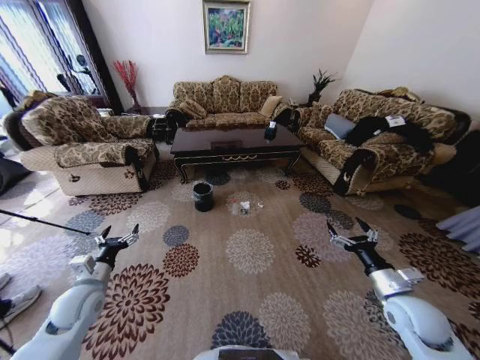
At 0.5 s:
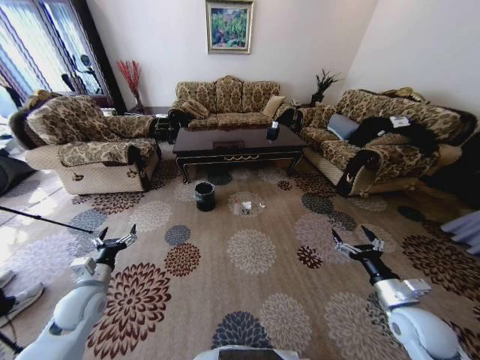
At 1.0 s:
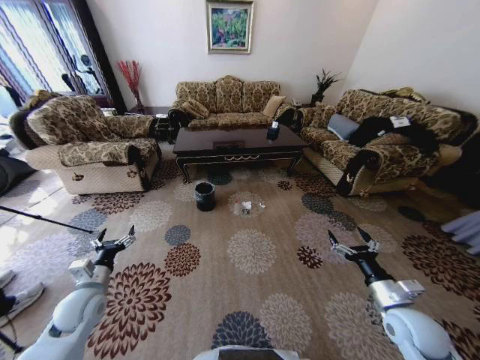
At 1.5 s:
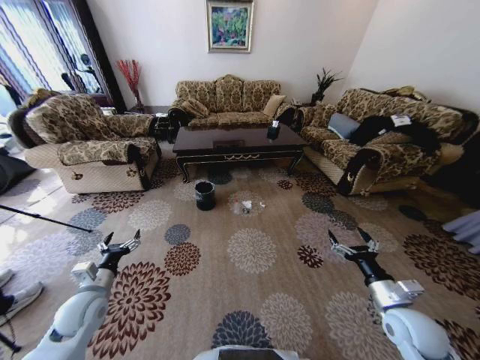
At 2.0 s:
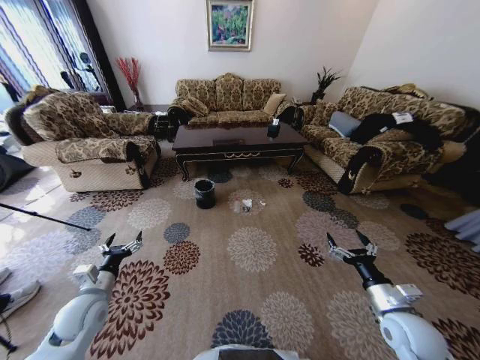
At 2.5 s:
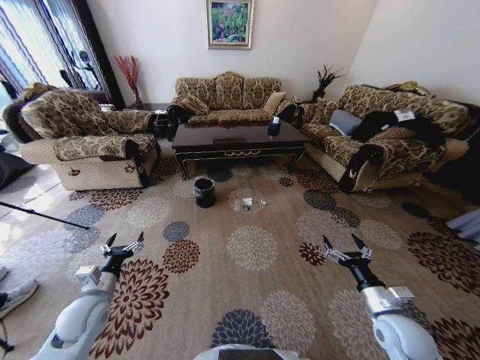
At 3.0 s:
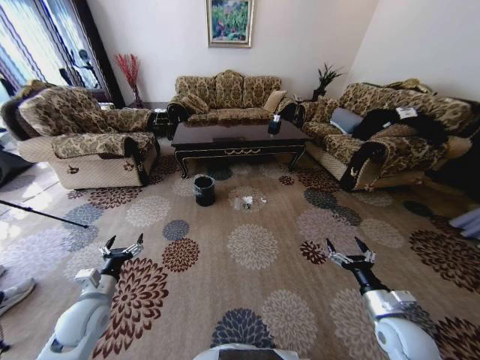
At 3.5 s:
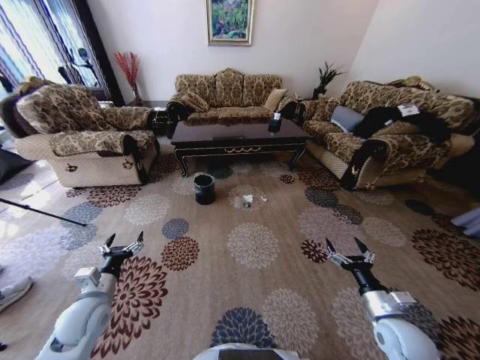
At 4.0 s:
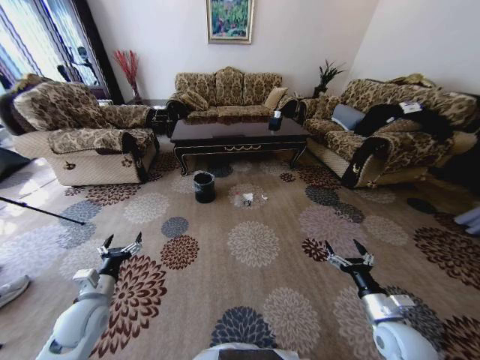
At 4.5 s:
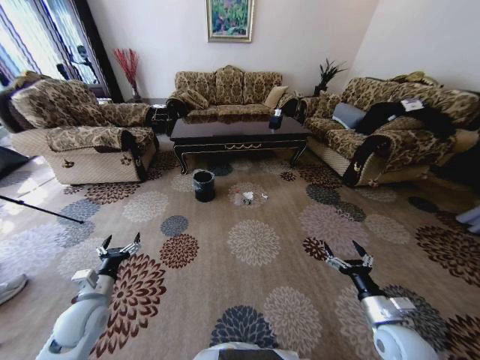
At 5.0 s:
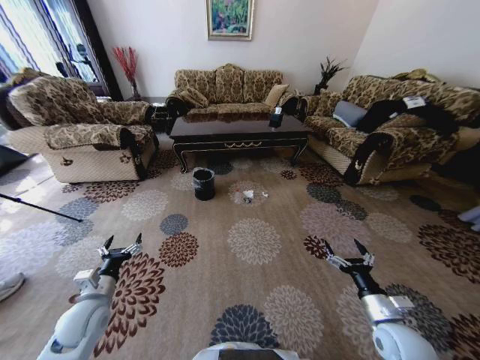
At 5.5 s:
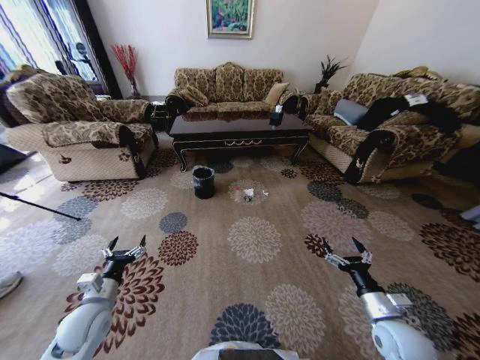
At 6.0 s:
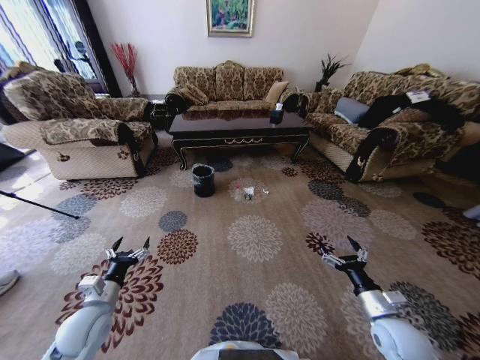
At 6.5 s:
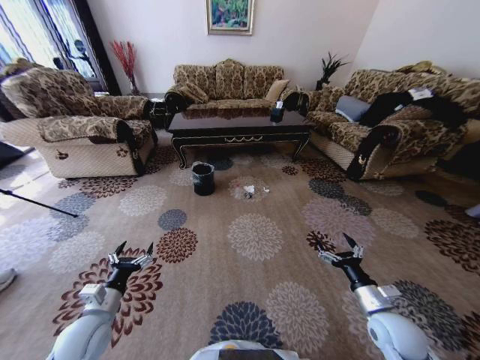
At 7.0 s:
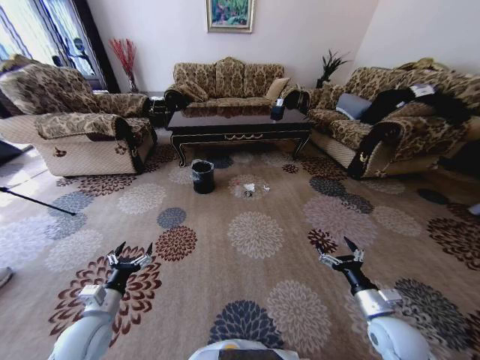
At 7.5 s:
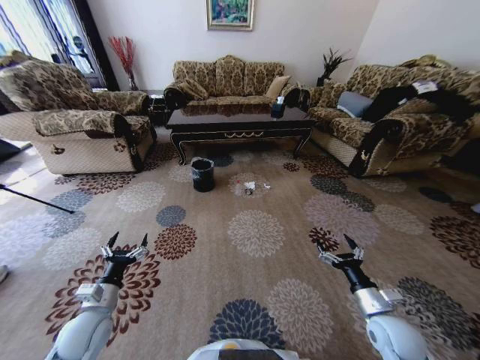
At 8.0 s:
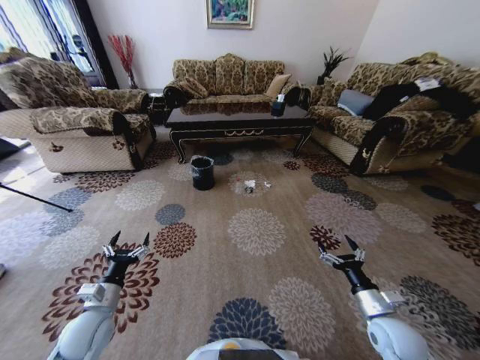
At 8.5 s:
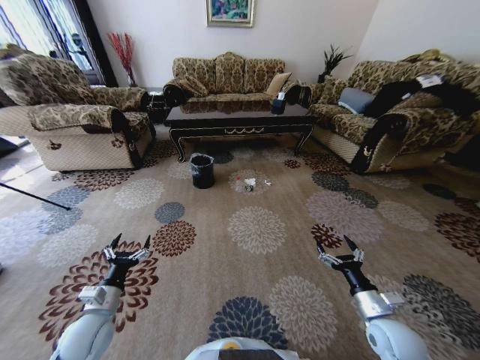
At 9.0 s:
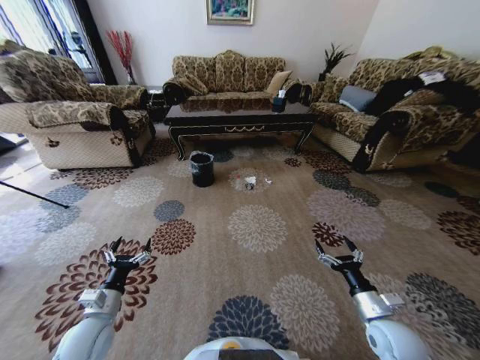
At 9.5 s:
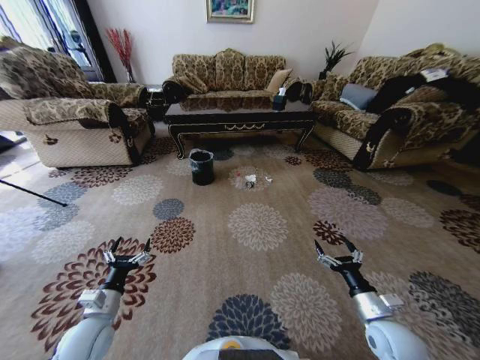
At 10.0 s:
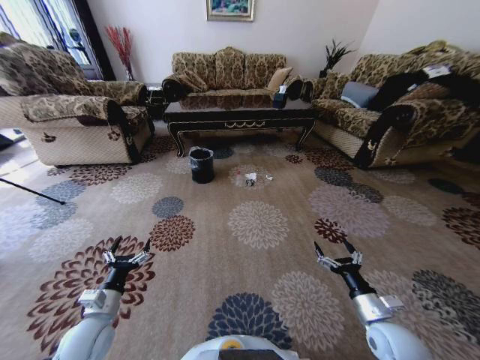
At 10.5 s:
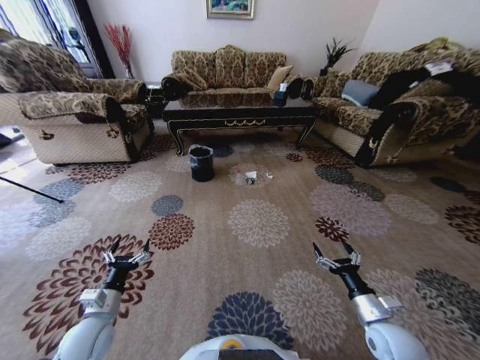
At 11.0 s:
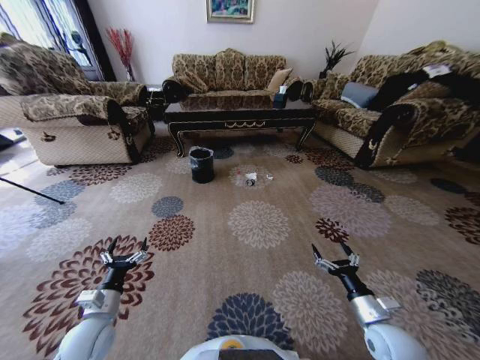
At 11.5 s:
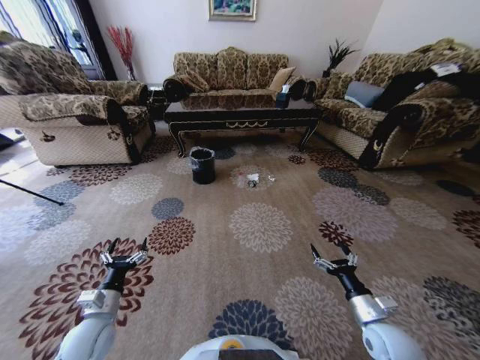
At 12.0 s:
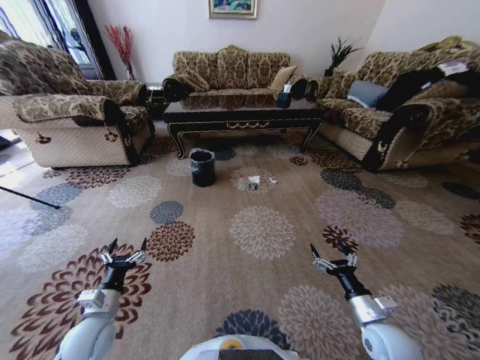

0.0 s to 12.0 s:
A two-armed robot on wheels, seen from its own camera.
Task of the whole recording: Move to the front of the table and pick up the trash from the floor, then place it into the trash bin.
10.0 to 12.0 s: Both grippers stay put.

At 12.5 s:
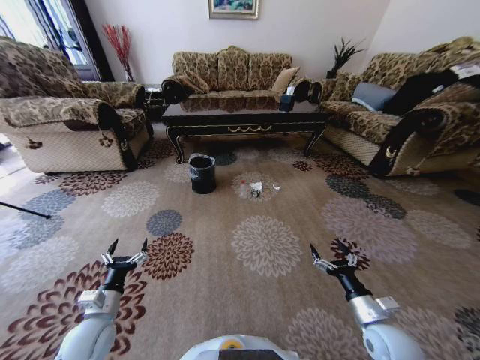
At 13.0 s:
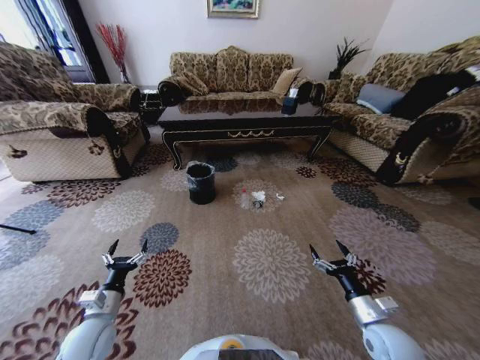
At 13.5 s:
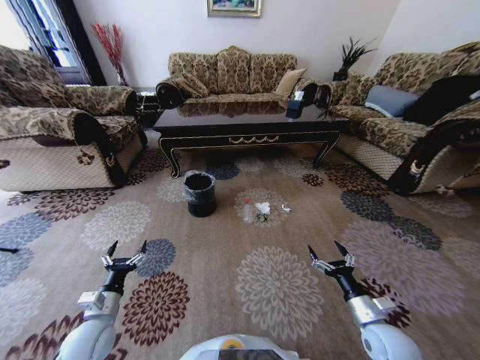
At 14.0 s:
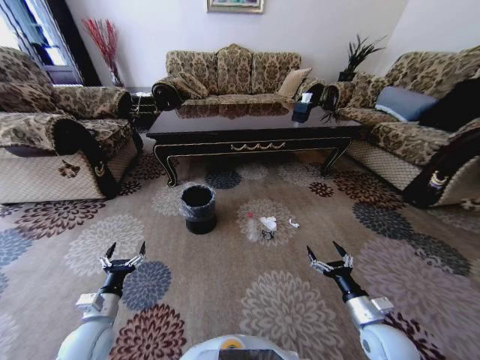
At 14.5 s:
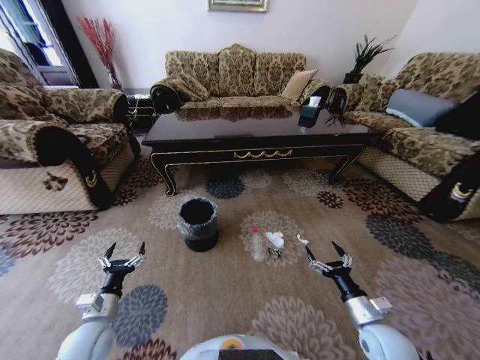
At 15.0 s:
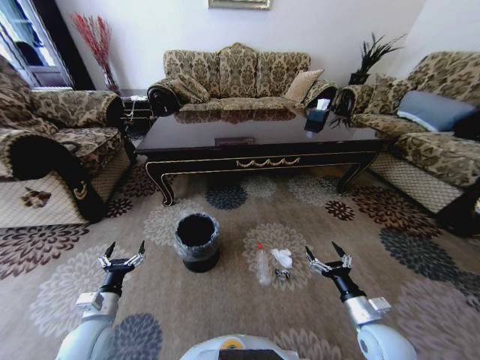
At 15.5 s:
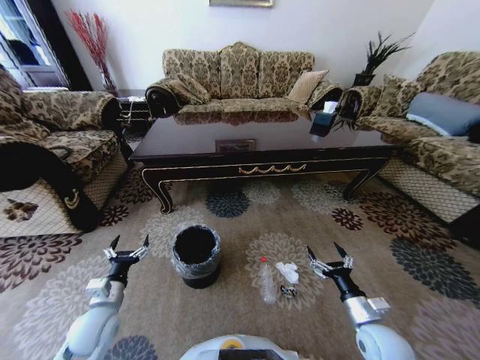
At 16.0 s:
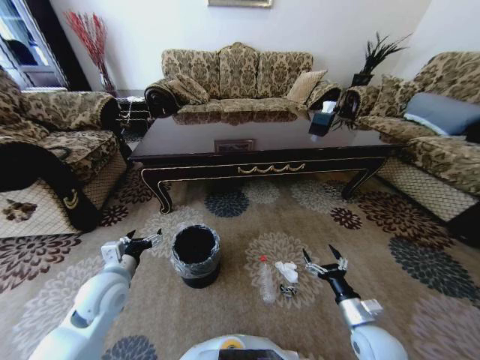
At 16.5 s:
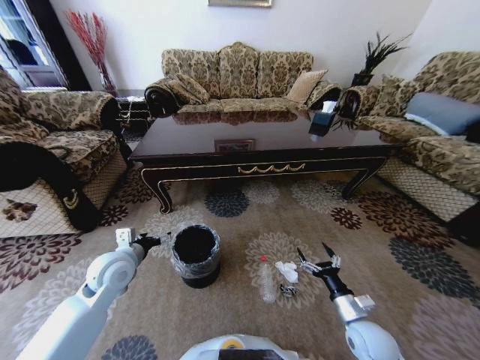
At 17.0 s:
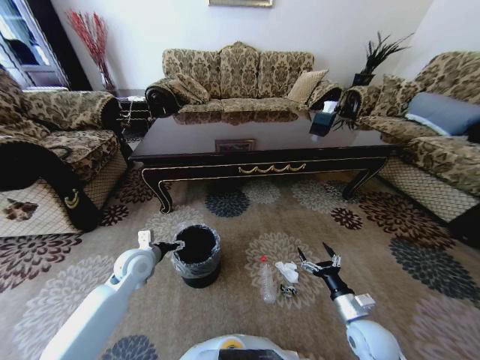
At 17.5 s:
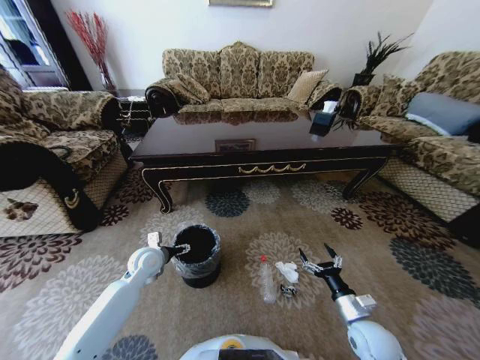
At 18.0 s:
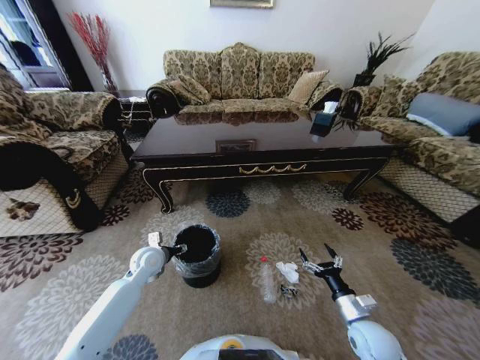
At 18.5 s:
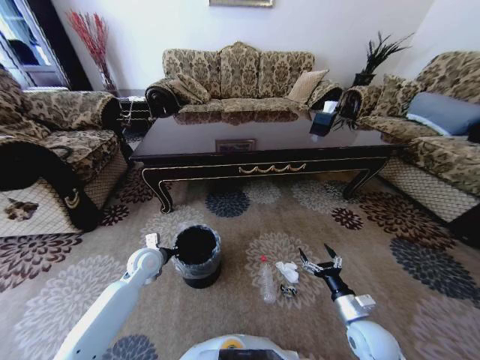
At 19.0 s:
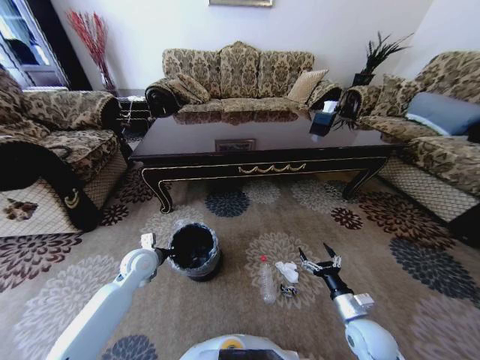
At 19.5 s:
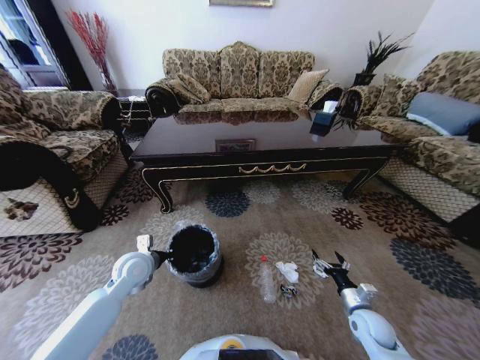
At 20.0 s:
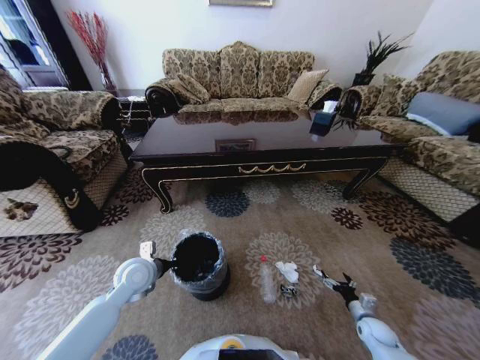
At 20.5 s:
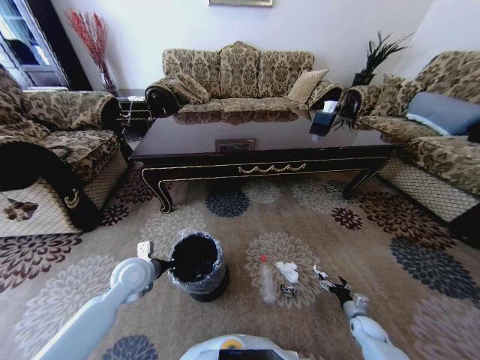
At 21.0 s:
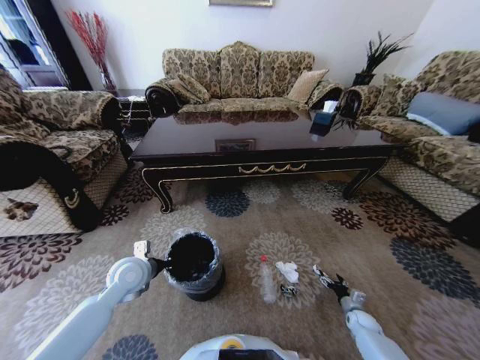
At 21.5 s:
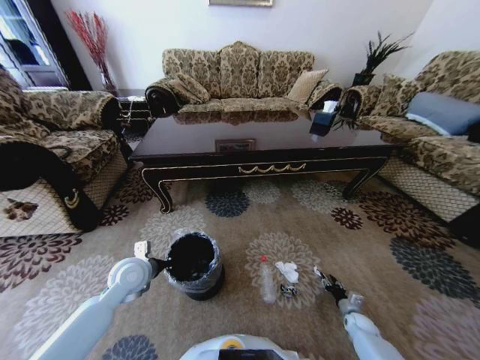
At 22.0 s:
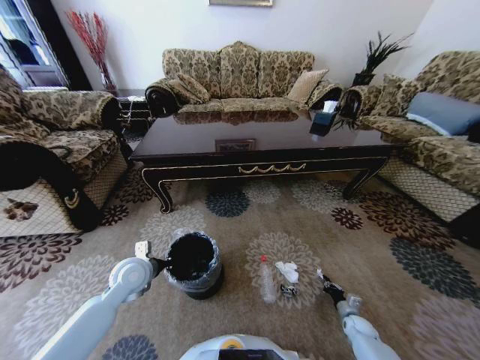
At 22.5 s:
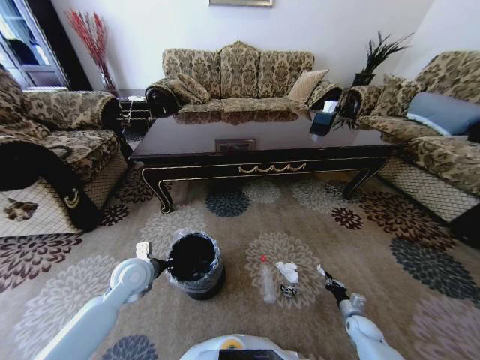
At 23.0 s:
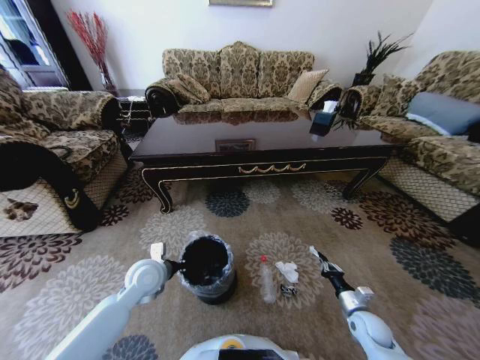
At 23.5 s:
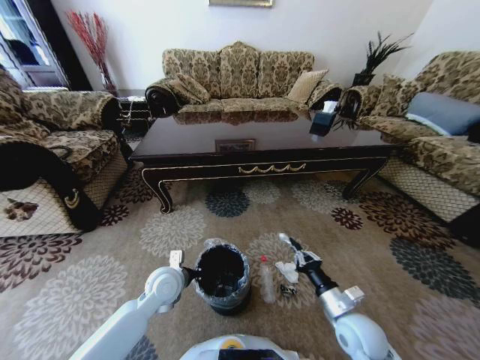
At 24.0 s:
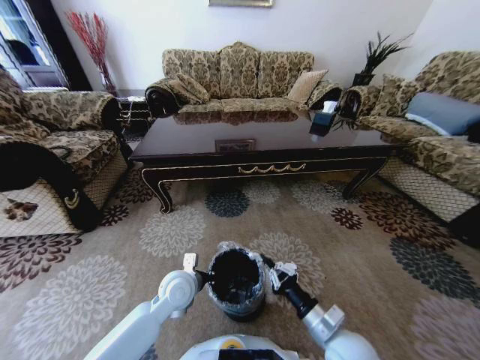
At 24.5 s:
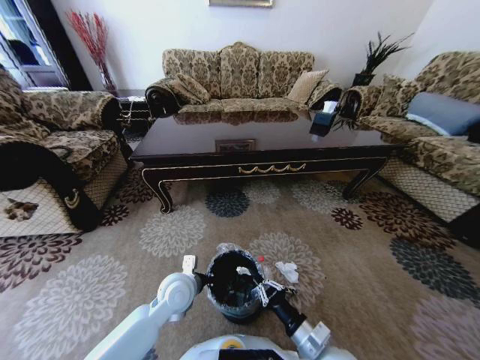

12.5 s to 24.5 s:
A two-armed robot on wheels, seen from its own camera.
Task of the whole recording: Move to the front of the table and pick up the trash from the floor, then place it into the trash bin.
14.5 to 16.5 s: The left gripper shifts roughly 20 cm upward, forward and to the right.
16.5 to 18.5 s: The left gripper moves downward and forward, approximately 10 cm, and closes.
18.5 to 20.5 s: The left gripper moves backward, some 5 cm; the right gripper is displaced downward and to the right by some 25 cm.
20.5 to 22.5 s: The right gripper closes.
22.5 to 24.5 s: The right gripper goes roughly 35 cm to the left, upward and backward, while the left gripper shifts approximately 10 cm to the right.

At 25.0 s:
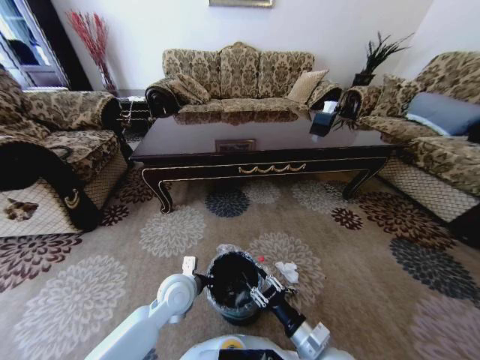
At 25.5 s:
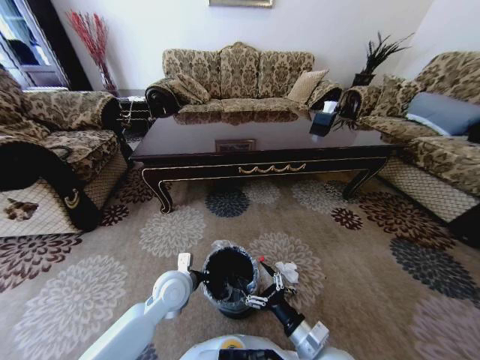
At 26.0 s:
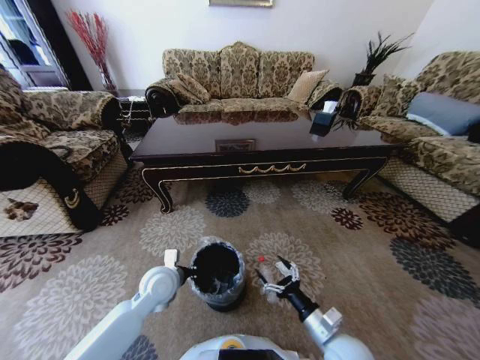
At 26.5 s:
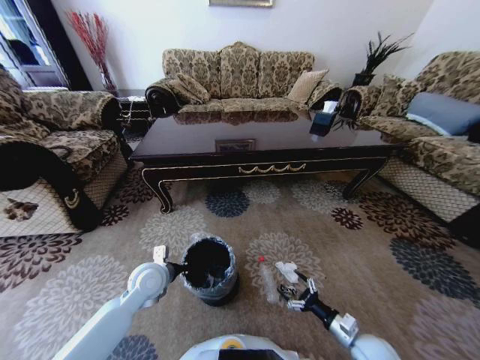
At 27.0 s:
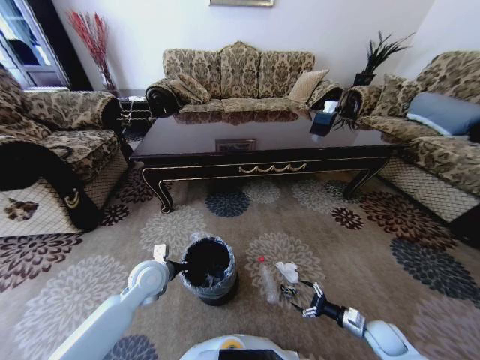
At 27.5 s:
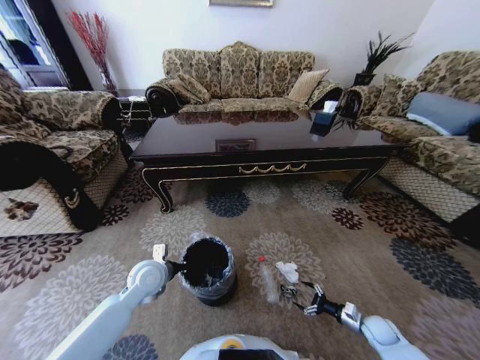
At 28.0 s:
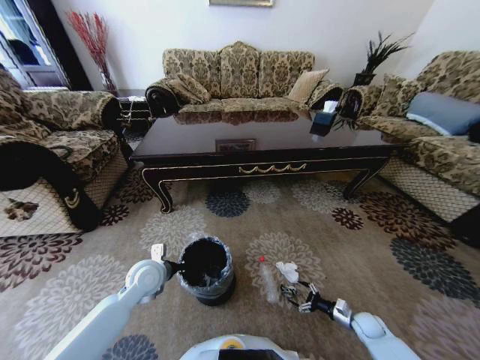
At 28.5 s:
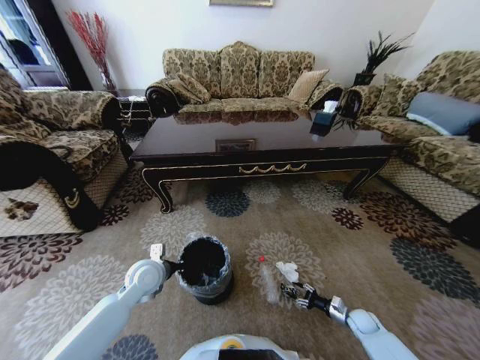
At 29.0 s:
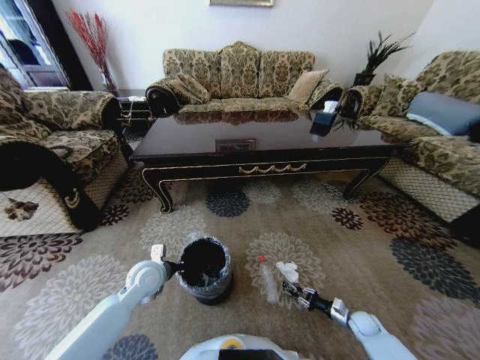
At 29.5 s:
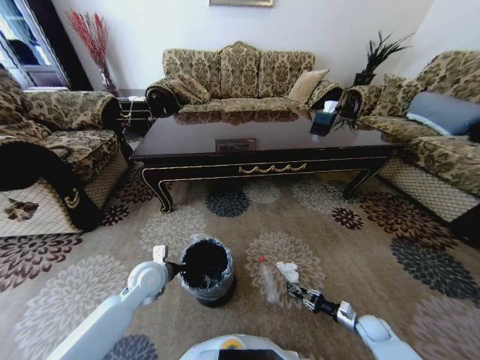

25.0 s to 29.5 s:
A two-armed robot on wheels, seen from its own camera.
Task of the whole recording: Move to the front of the table and pick up the trash from the floor, then place it into the trash bin.
25.0 to 27.0 s: The right gripper is displaced to the right and downward by roughly 30 cm, and opens. The left gripper shifts approximately 10 cm to the left.
27.0 to 29.5 s: The right gripper goes some 5 cm downward, and closes up.
